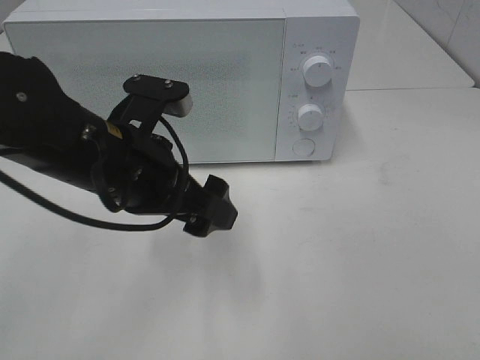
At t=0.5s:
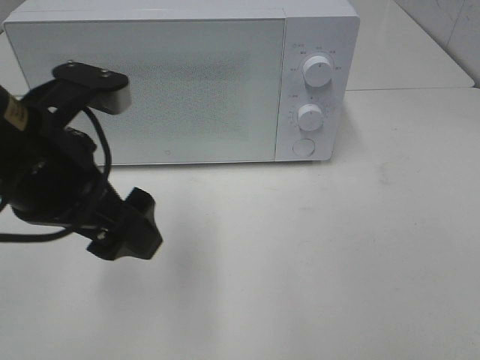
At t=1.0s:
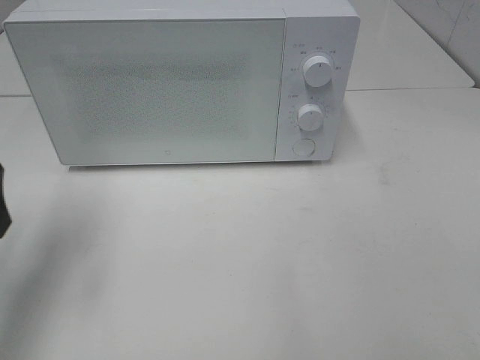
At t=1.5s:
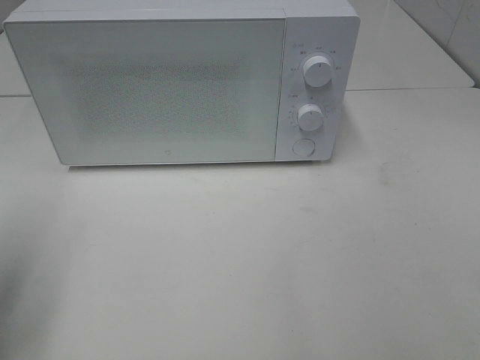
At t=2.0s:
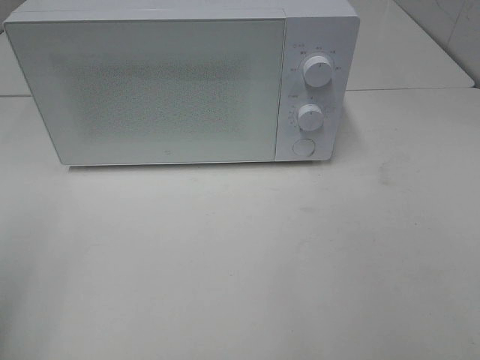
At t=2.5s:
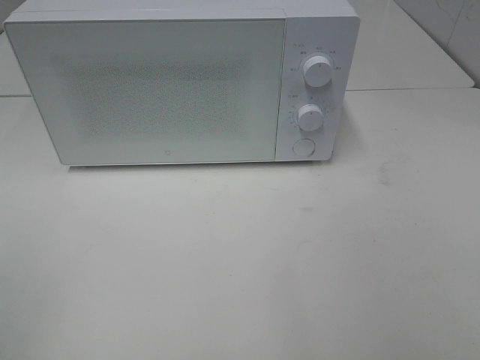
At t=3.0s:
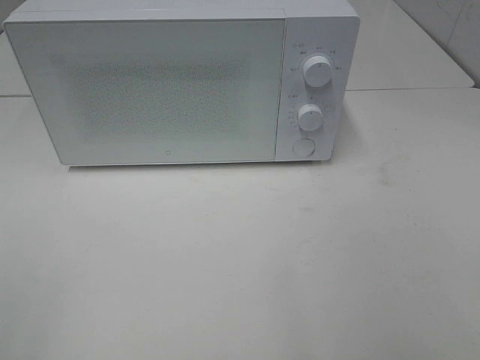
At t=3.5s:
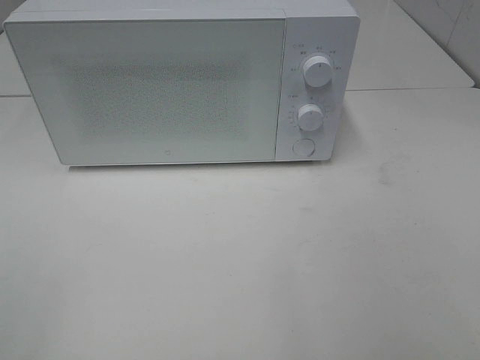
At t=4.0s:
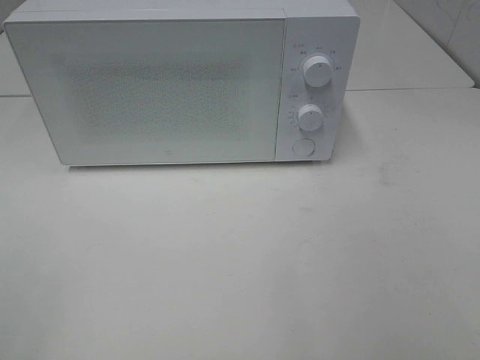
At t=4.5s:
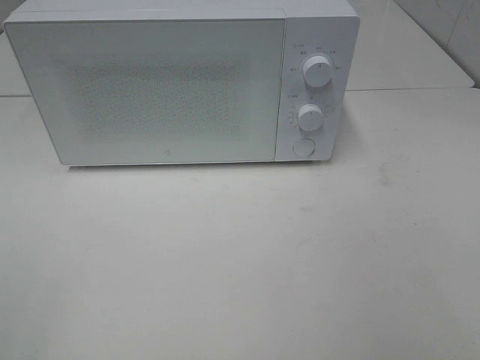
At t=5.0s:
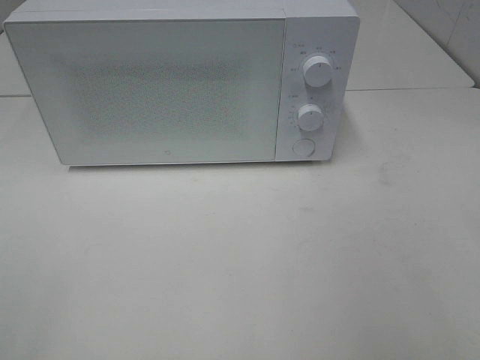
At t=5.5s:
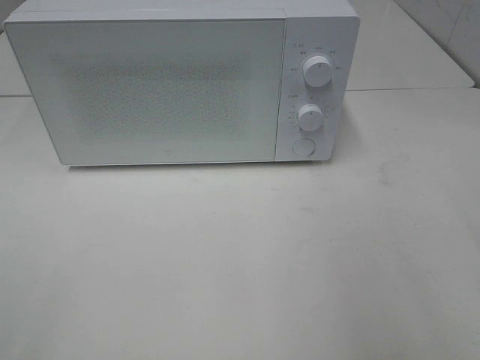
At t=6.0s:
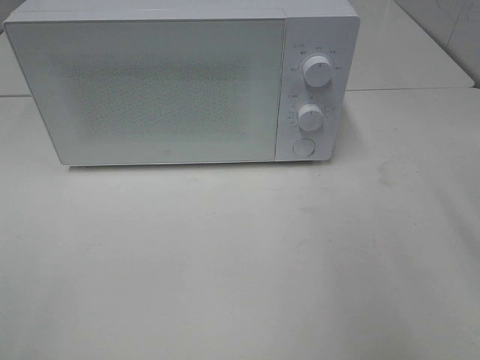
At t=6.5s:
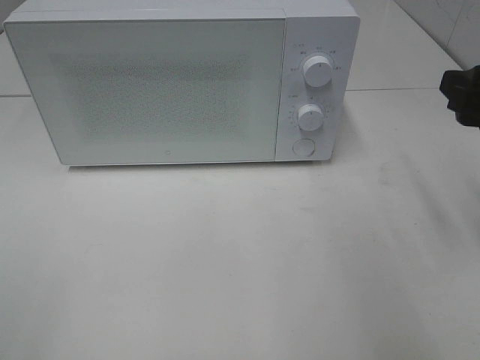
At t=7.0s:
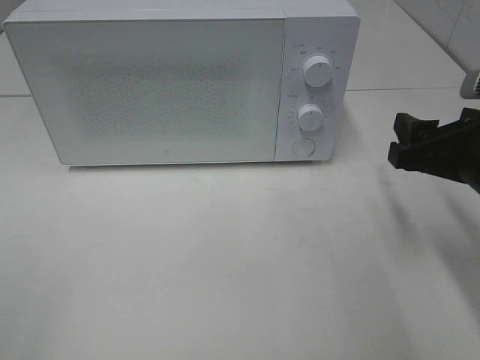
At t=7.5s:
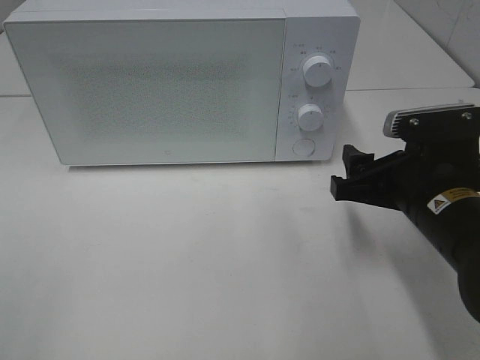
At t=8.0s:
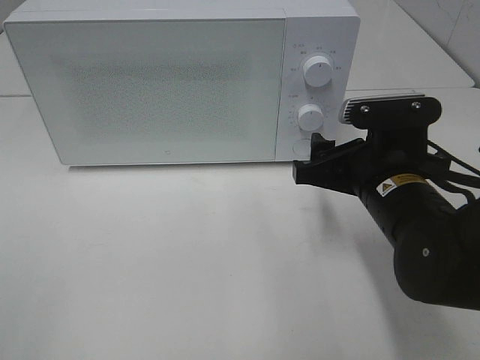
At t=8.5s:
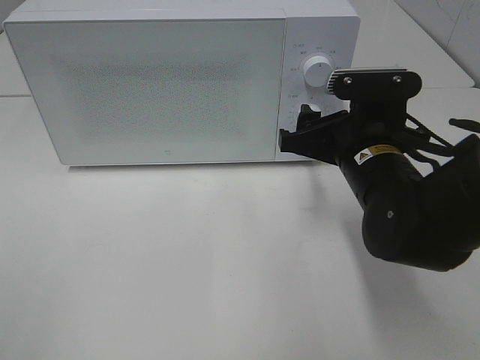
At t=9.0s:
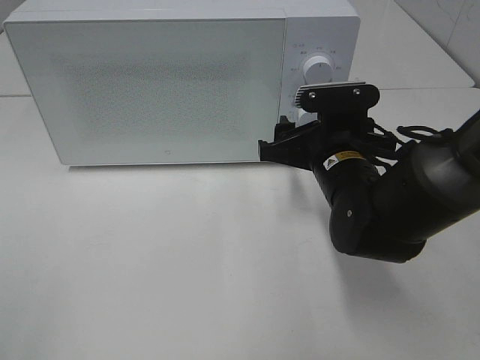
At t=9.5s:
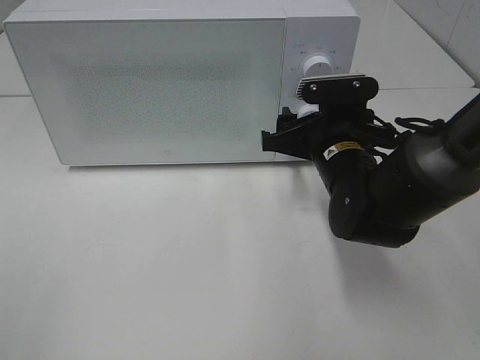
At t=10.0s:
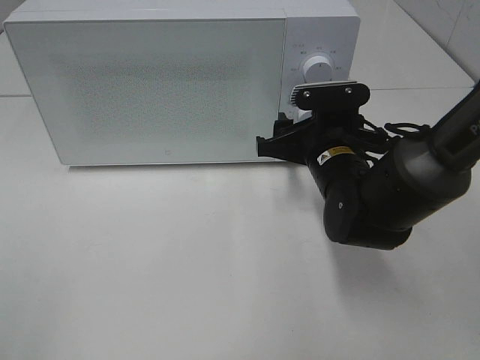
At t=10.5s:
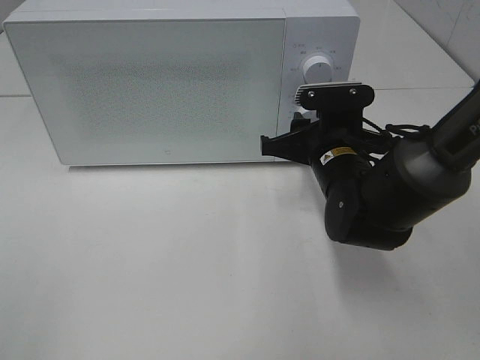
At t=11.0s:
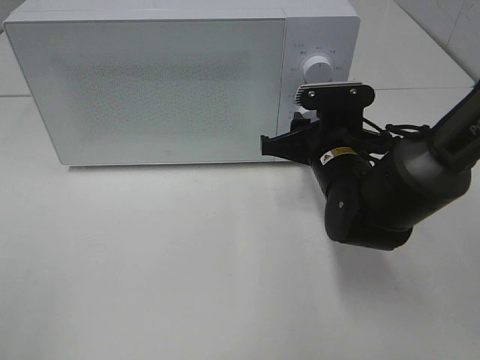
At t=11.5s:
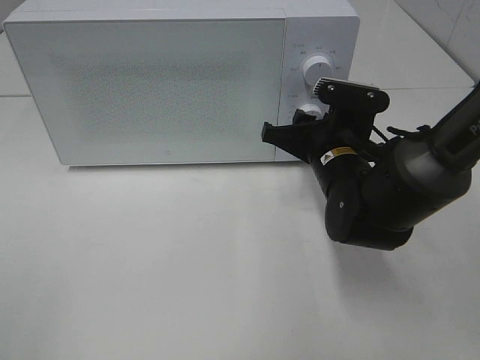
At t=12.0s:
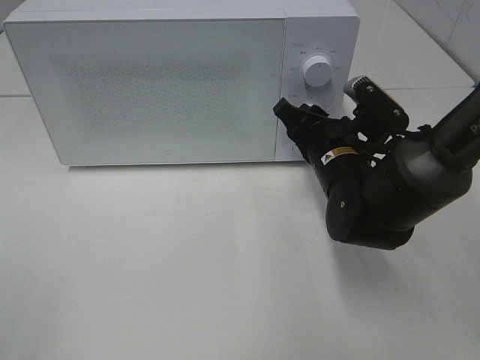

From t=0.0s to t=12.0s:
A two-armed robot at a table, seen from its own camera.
Task of the whole recording: Heat the burger.
From t=0.0s to t=2.0s: The left gripper shifts some 25 cm to the left and backward.
From t=6.0s to t=8.0s: The right gripper heads downward and to the left, covering some 20 cm.
From t=8.0s to t=10.0s: The right gripper goes about 10 cm forward.

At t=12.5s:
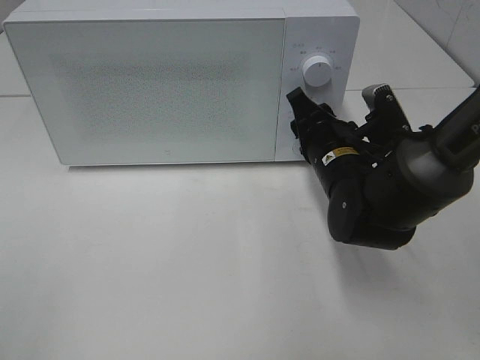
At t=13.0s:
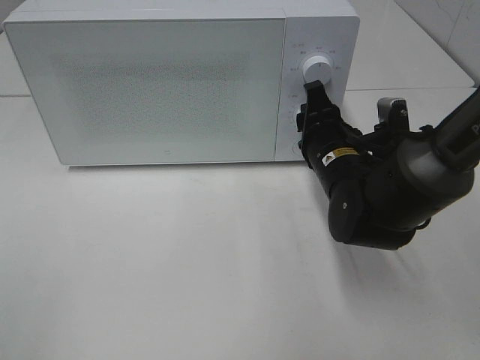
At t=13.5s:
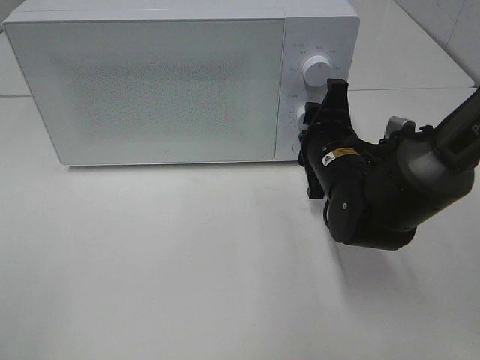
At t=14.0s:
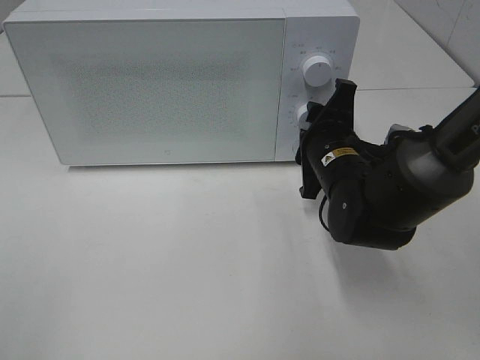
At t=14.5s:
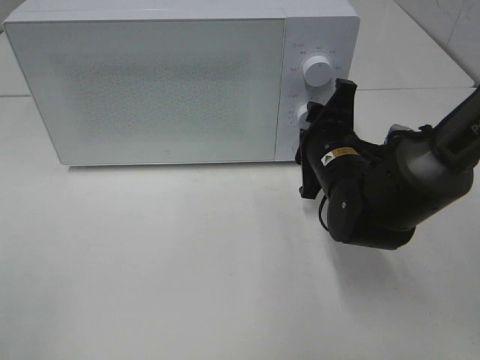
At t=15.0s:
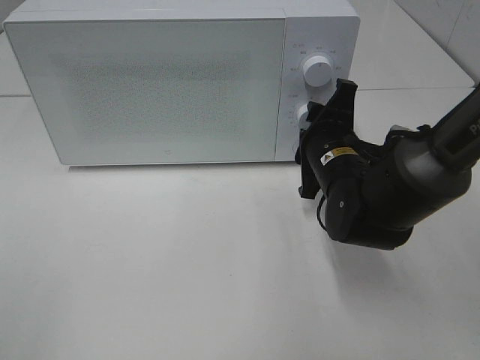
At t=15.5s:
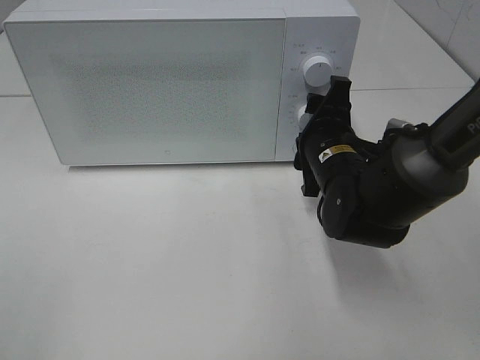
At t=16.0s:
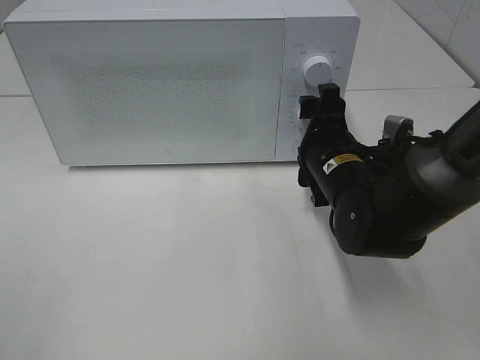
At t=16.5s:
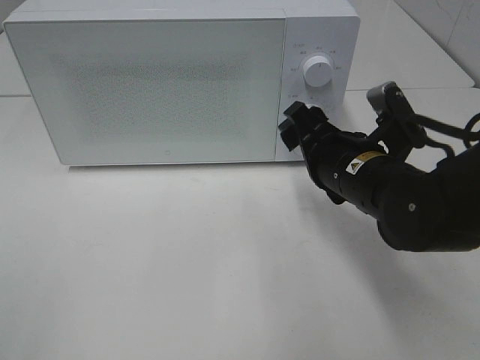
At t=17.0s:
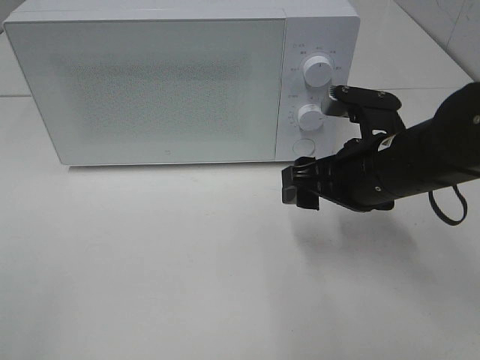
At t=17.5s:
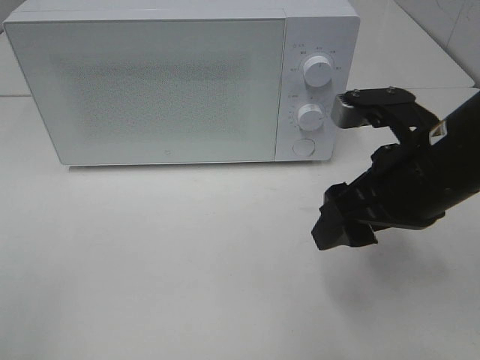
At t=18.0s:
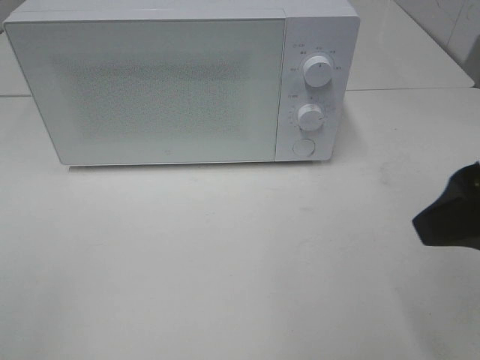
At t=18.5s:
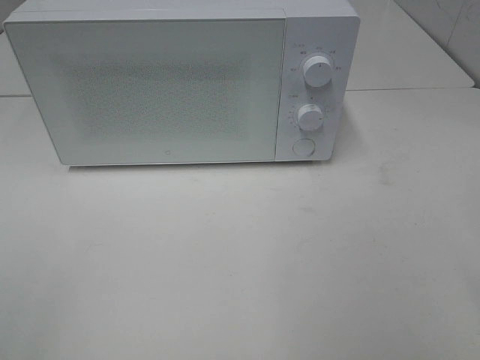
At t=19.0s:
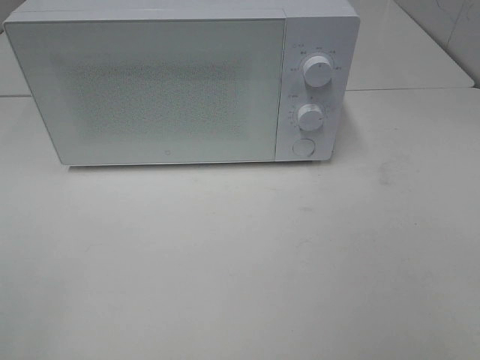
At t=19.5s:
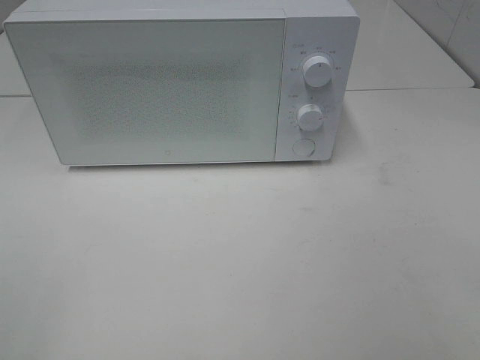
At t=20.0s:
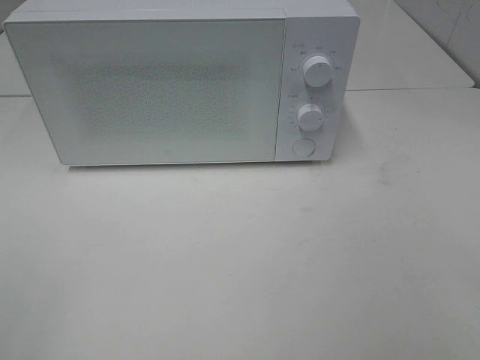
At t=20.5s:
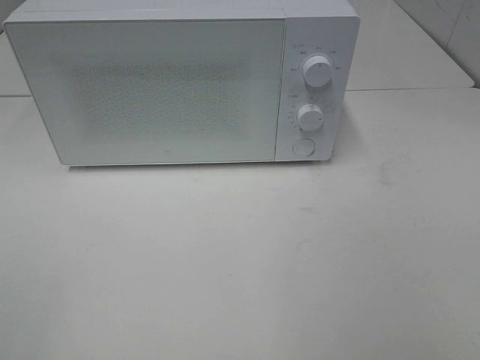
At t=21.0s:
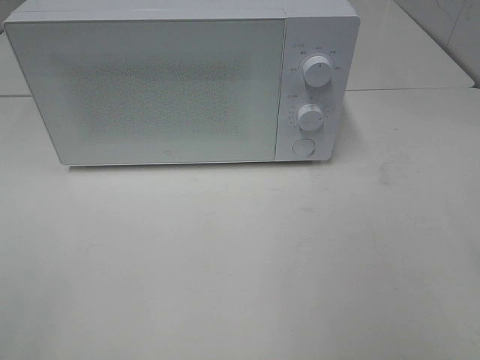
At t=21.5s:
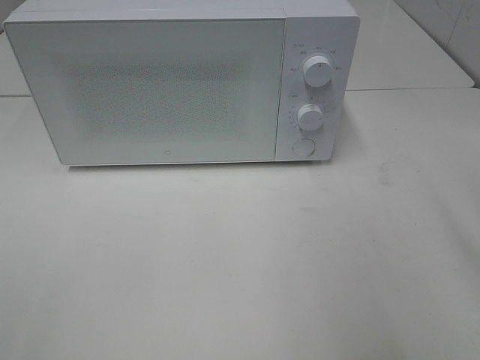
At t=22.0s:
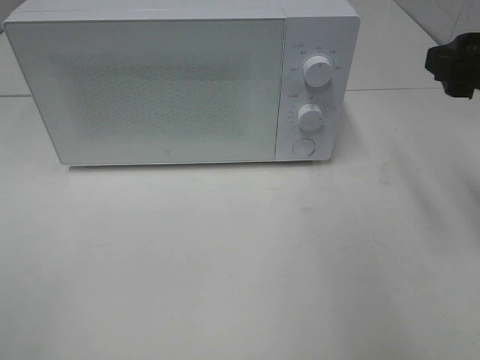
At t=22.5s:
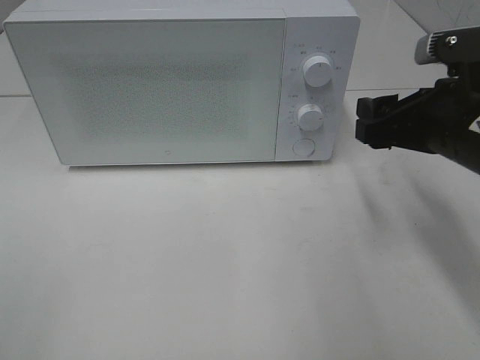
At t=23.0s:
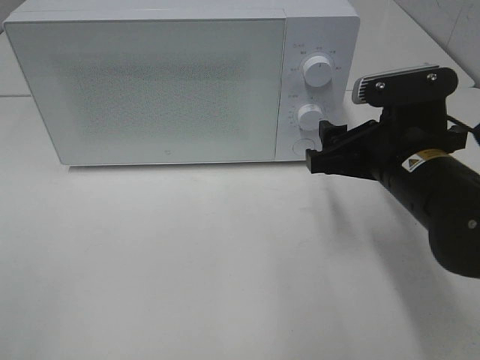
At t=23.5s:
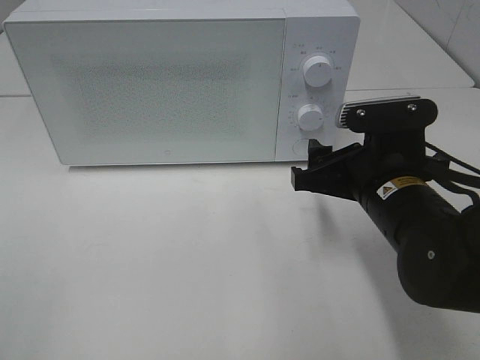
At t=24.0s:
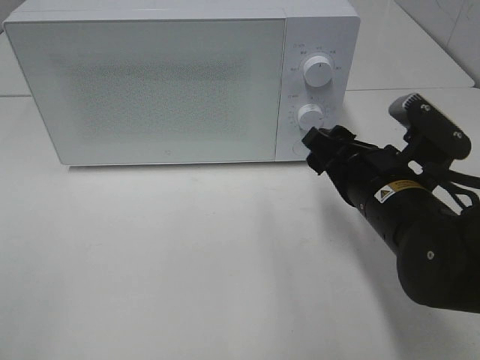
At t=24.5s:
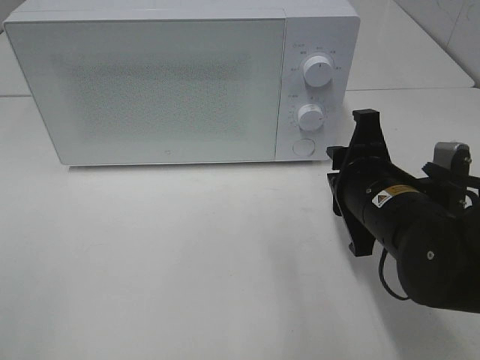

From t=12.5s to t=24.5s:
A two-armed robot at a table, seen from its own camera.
Task of the whole recording: Heat the burger.
Step, from t=12.5s to t=15.5s: Right hand: twist timer button.
From t=14.5s to t=16.5s: The right gripper ends up some 5 cm from where it was, and opens its fingers.
From t=16.5s to t=18.5s: The right gripper heads backward, upward and to the right, covering roughly 30 cm.
From t=20.5s to t=22.5s: The right gripper travels forward and downward by roughly 25 cm.
From t=22.5s to t=24.5s: The right gripper travels downward and to the left by some 10 cm, and closes its fingers.

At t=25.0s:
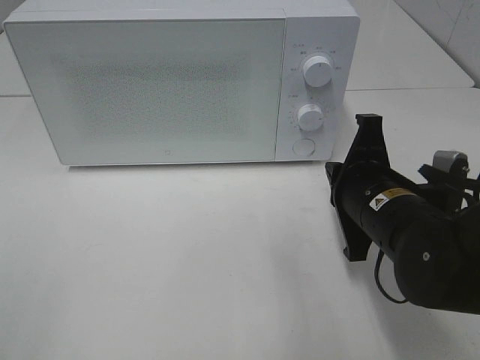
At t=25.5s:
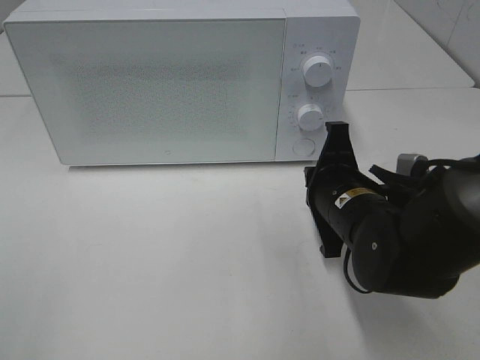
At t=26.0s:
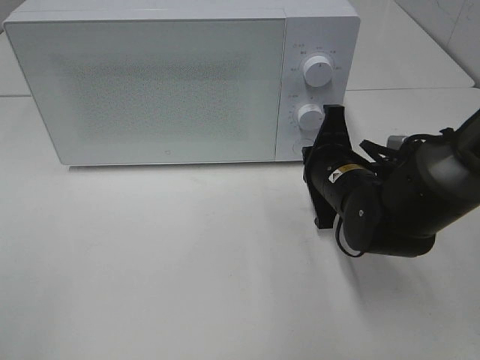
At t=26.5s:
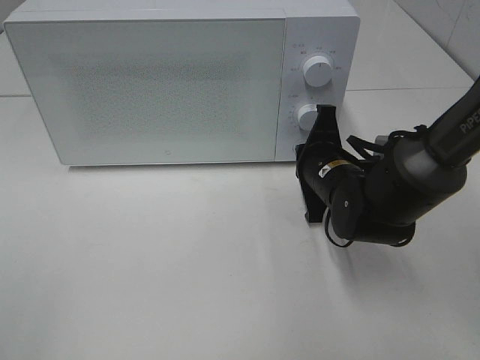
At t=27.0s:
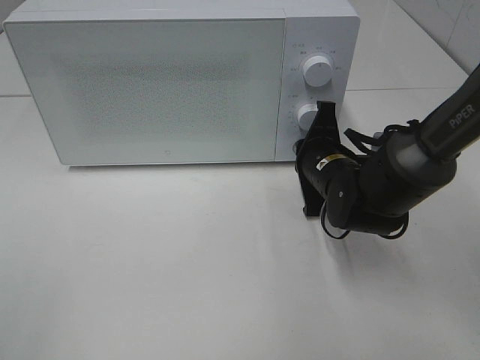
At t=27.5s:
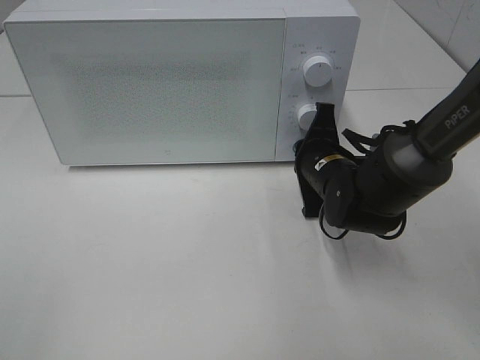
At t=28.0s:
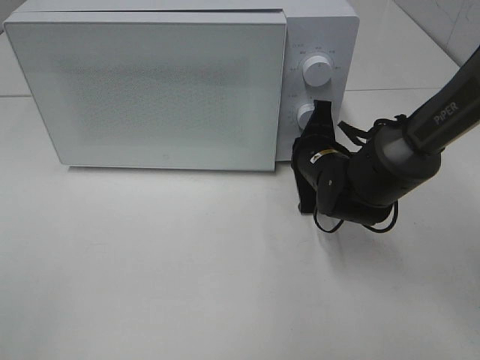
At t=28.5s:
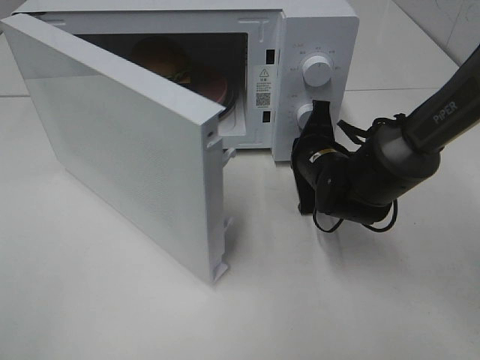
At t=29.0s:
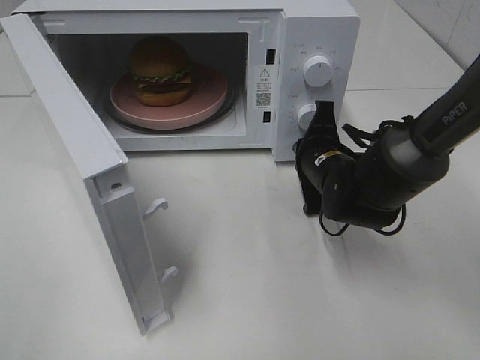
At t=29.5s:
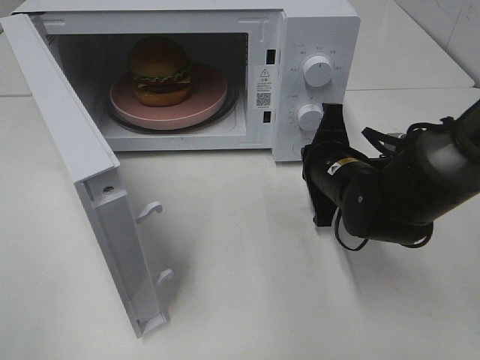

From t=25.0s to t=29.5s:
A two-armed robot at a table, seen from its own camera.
Task of the whole recording: Heat the burger.
Step, from t=25.0s to t=29.0s: Right hand: press the switch.
From t=25.0s to t=27.0s: The right gripper moves forward, about 10 cm.
